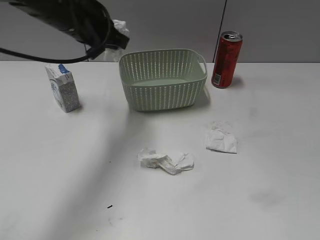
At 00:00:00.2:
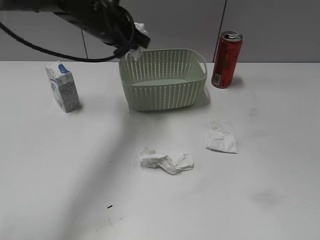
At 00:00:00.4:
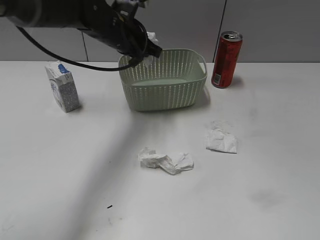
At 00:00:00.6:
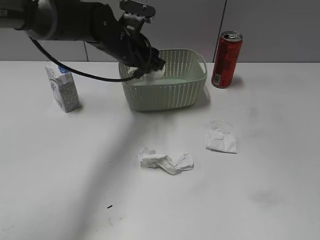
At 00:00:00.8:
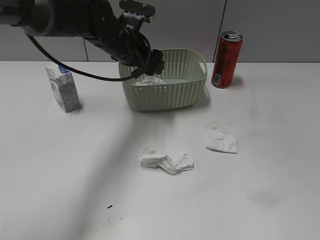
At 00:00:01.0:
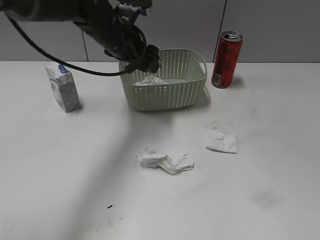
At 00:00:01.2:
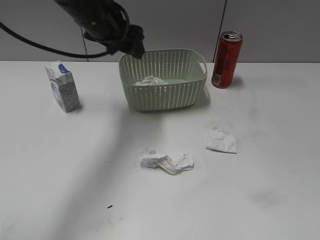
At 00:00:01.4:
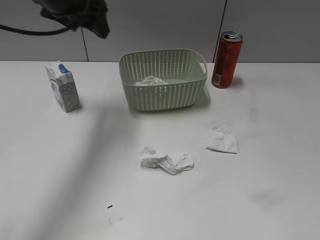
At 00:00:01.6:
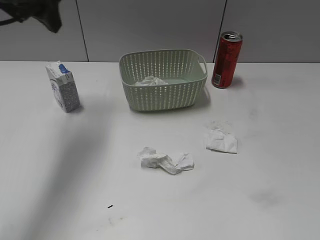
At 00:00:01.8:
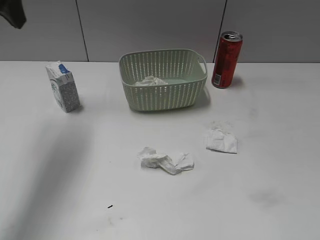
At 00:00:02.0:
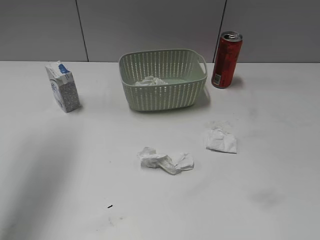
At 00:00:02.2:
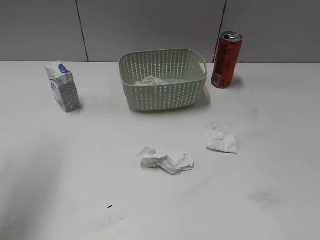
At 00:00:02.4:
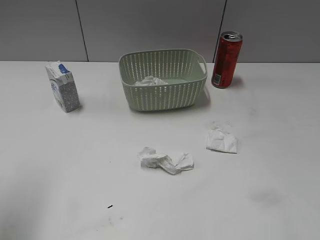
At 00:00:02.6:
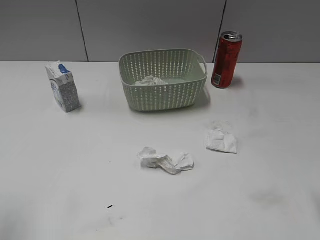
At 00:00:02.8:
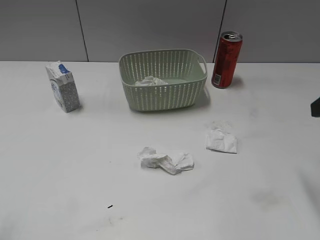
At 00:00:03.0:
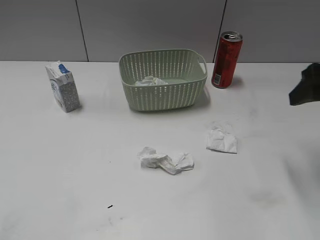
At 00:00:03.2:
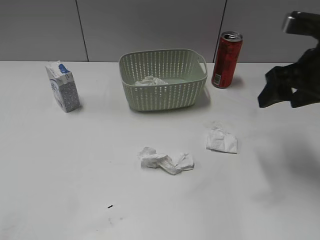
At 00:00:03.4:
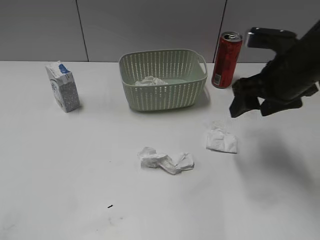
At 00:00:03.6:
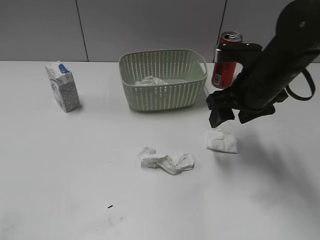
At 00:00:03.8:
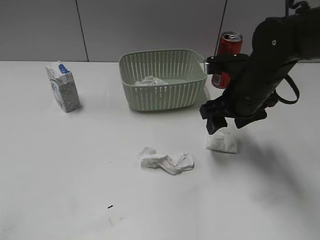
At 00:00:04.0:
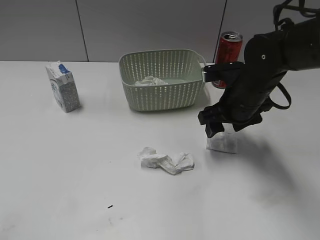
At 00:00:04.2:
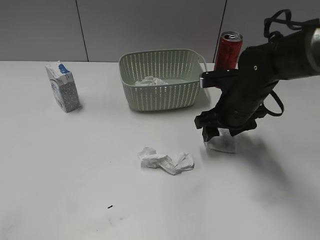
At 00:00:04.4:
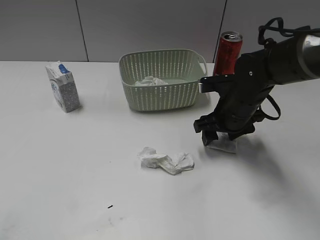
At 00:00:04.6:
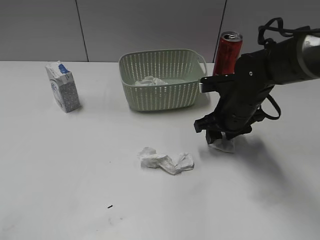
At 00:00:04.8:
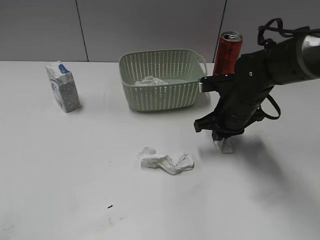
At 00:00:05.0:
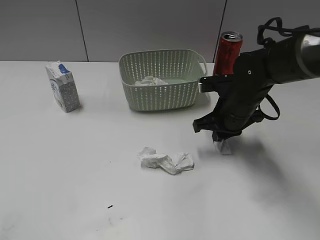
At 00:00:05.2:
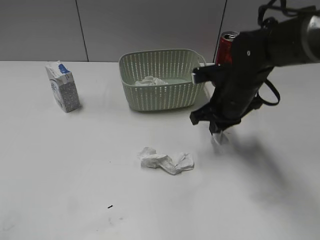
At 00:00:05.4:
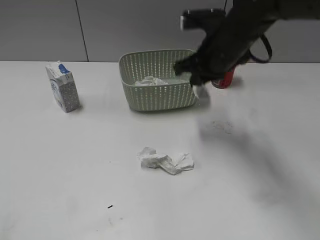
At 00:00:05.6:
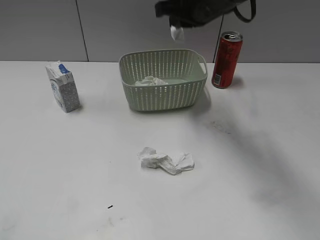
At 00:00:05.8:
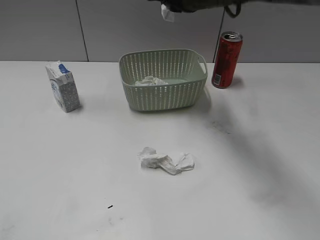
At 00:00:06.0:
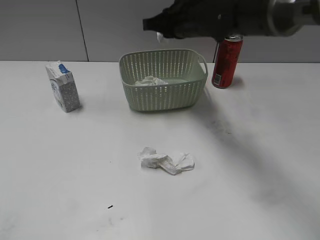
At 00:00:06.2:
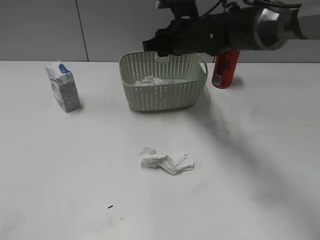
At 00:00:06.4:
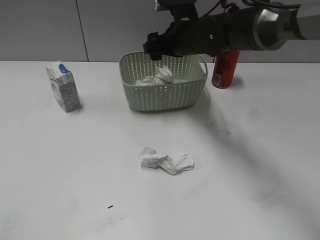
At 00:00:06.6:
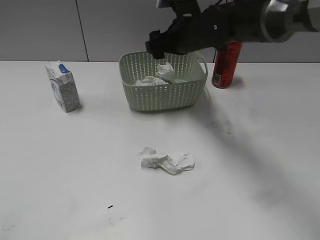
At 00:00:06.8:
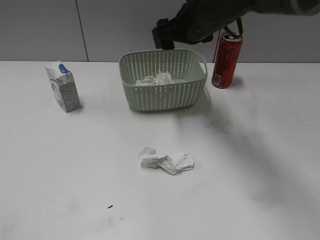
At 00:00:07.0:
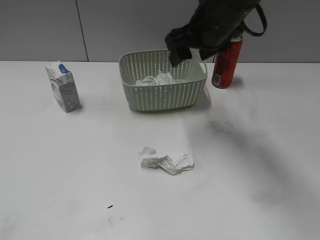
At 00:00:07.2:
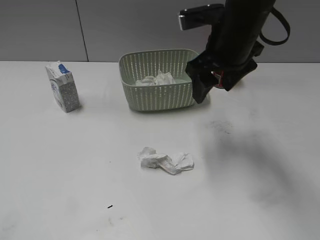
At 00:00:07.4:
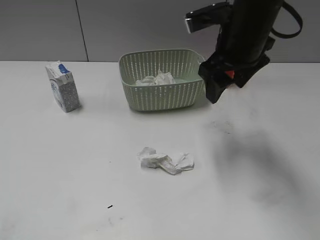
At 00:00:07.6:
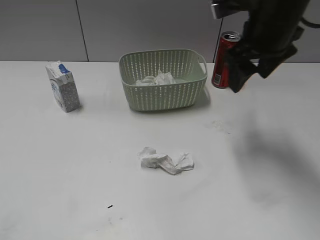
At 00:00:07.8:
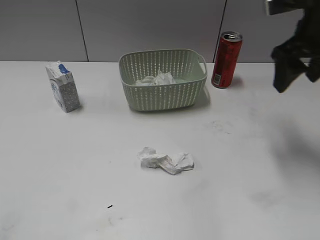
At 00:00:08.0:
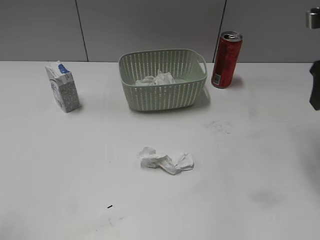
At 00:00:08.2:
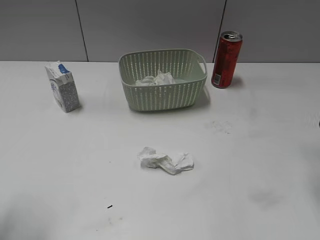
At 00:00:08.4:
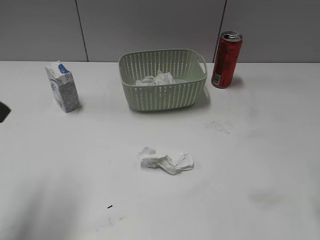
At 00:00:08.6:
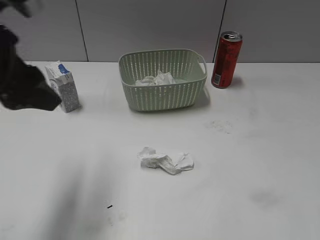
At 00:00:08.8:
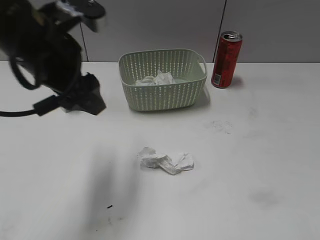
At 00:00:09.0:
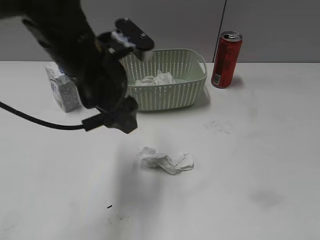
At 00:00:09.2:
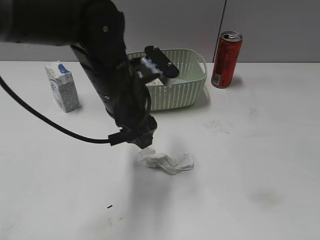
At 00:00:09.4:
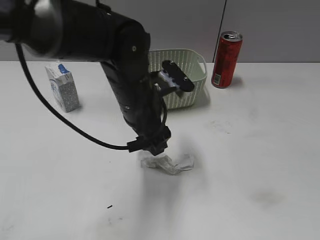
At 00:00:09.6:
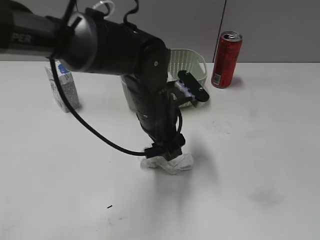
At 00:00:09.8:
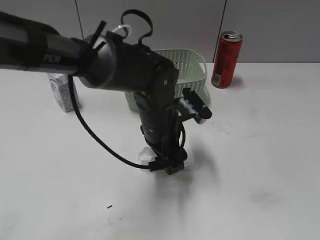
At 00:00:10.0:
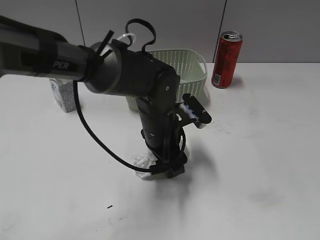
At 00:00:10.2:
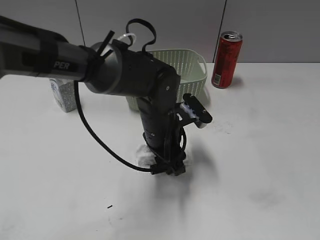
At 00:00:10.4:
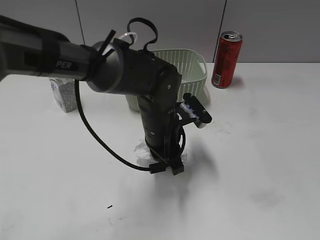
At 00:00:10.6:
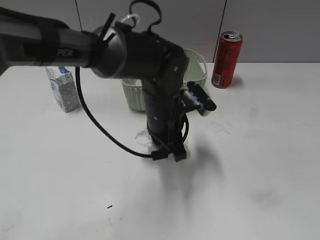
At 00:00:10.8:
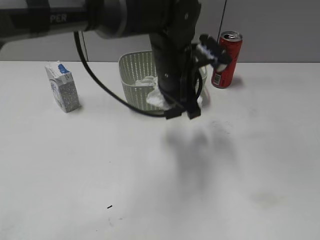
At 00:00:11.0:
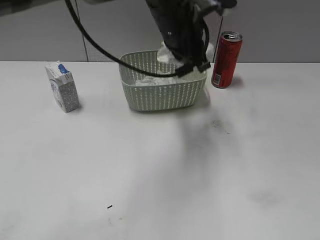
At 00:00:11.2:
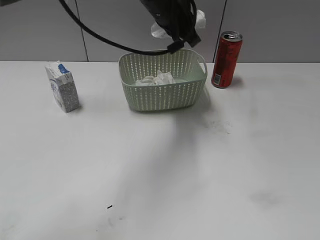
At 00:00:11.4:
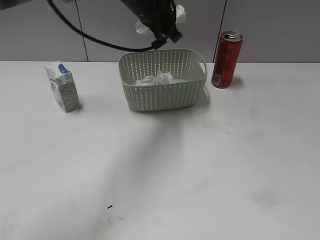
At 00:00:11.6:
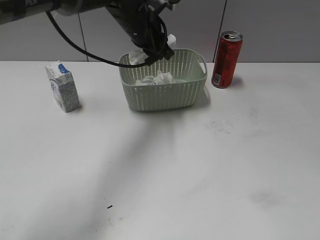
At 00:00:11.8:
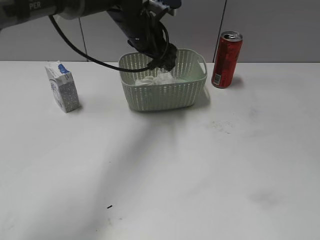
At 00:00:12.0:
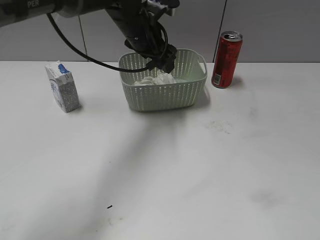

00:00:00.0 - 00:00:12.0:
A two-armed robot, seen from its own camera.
Step, 00:00:00.0 - 00:00:00.8: Place the waste paper in the basket with left gripper.
Step, 00:00:01.0 - 00:00:04.8: Grasp the waste paper with right gripper.
Step, 00:00:05.0 - 00:00:06.6: Place the waste paper in the basket with right gripper.
Step, 00:00:06.8 - 00:00:10.4: Grasp the waste paper with left gripper.
00:00:00.0 - 00:00:01.6: The left gripper moves to the left and upward, approximately 10 cm, and opens.
00:00:01.6 - 00:00:03.0: The right gripper heads forward, covering approximately 25 cm; the left gripper is displaced backward by approximately 30 cm.
00:00:03.0 - 00:00:04.4: The right gripper is displaced downward, to the left and forward by about 20 cm.
00:00:04.4 - 00:00:06.0: The right gripper shifts approximately 15 cm upward, forward and to the left, and closes its fingers.
00:00:06.0 - 00:00:07.6: The right gripper is displaced to the right, backward and upward by approximately 15 cm, and opens its fingers.
00:00:07.6 - 00:00:09.0: The right gripper travels backward and to the right by some 30 cm. The left gripper travels forward and to the right by about 35 cm.
00:00:09.0 - 00:00:10.4: The right gripper heads backward, covering about 5 cm, while the left gripper goes roughly 15 cm downward and to the right, and closes up.
00:00:10.4 - 00:00:12.0: The left gripper heads forward and upward, covering about 20 cm, and opens up.

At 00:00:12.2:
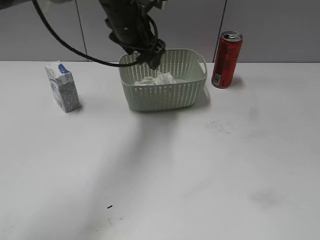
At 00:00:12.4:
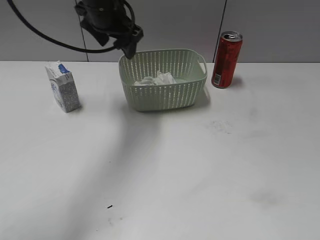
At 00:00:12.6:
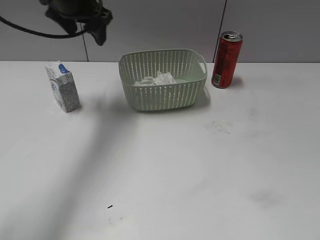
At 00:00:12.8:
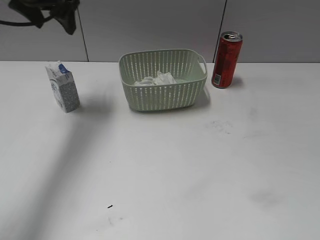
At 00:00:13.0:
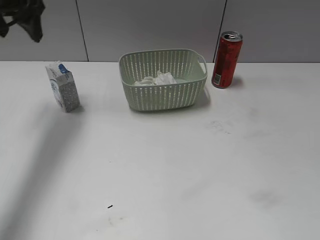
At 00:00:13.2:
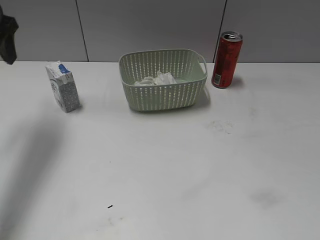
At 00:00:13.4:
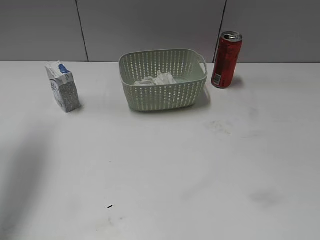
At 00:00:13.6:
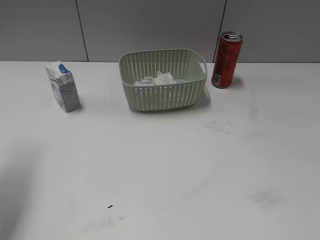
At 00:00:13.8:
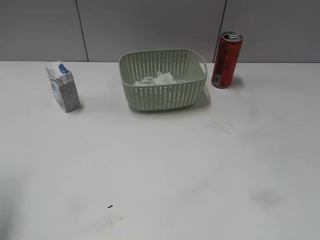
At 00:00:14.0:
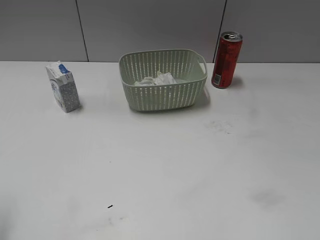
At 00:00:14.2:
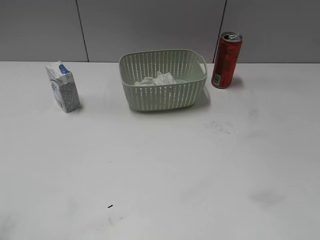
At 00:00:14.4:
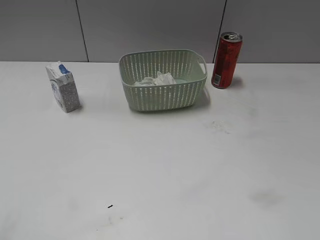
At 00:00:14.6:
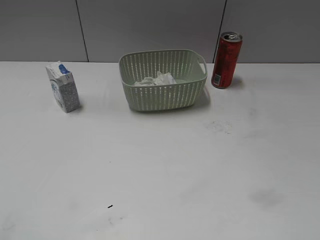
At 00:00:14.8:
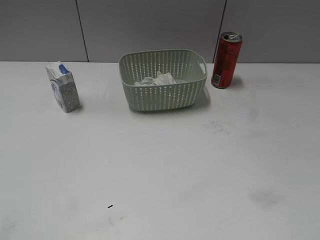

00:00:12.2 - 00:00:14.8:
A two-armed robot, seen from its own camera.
00:00:12.2 - 00:00:13.4: The left gripper shifts about 25 cm to the left and backward.
00:00:13.4 - 00:00:14.8: The left gripper heads backward, covering about 25 cm.
